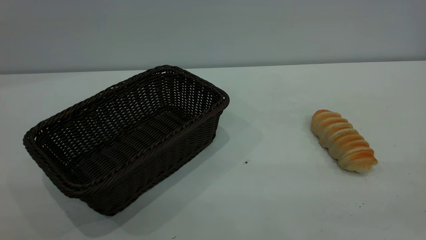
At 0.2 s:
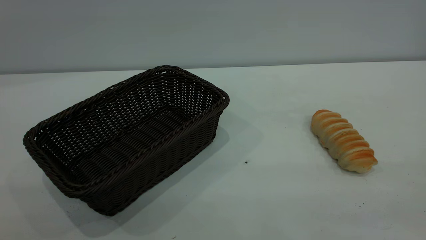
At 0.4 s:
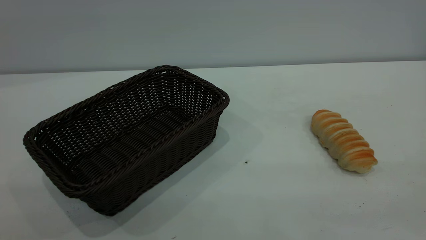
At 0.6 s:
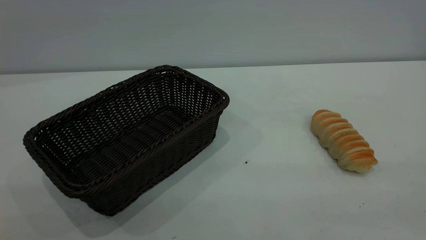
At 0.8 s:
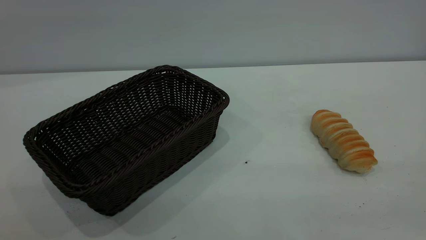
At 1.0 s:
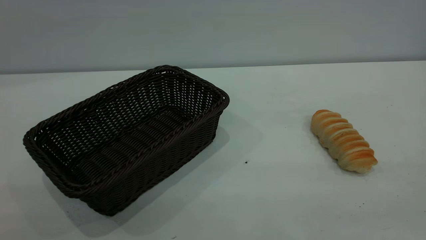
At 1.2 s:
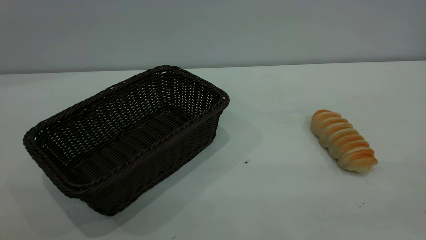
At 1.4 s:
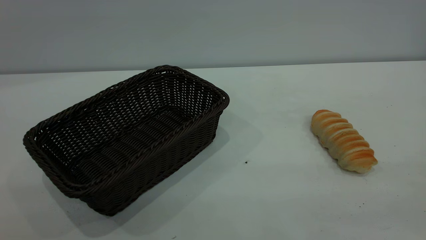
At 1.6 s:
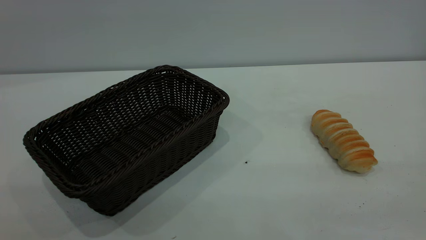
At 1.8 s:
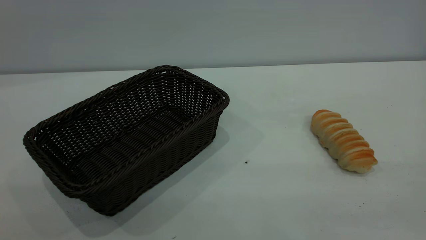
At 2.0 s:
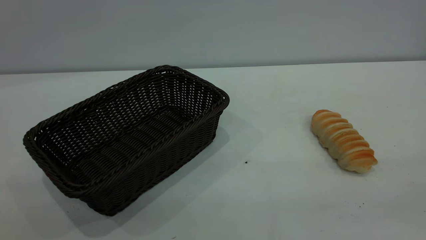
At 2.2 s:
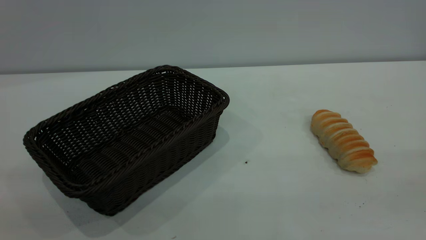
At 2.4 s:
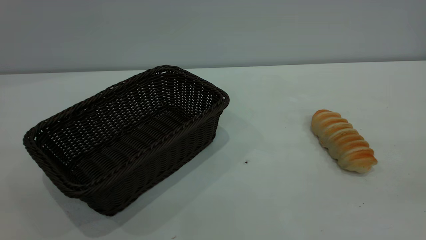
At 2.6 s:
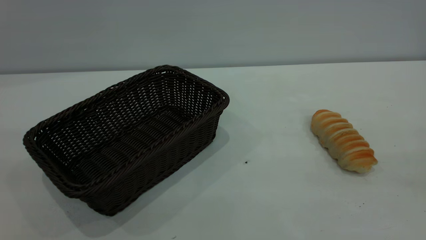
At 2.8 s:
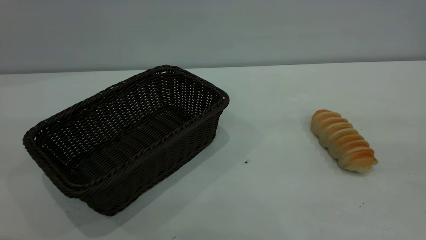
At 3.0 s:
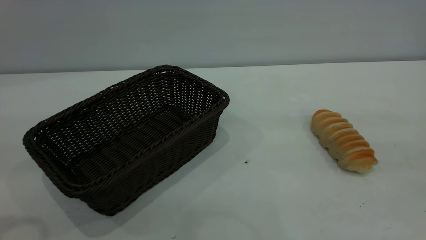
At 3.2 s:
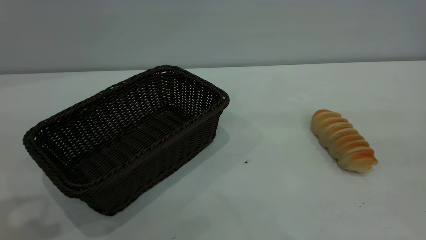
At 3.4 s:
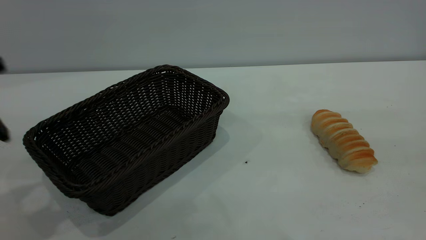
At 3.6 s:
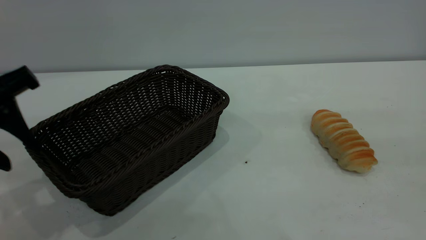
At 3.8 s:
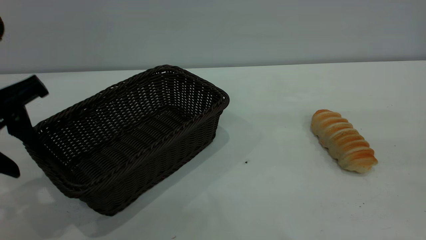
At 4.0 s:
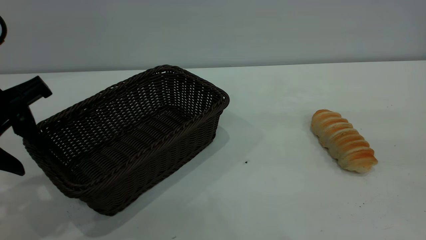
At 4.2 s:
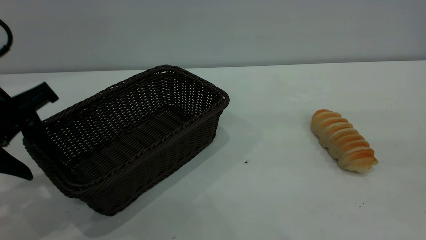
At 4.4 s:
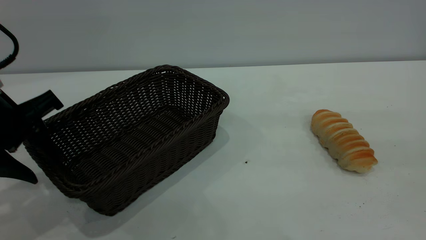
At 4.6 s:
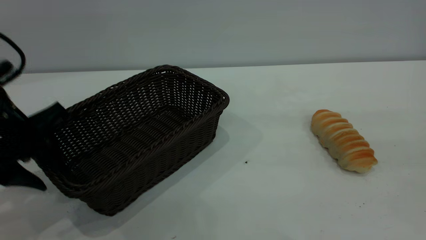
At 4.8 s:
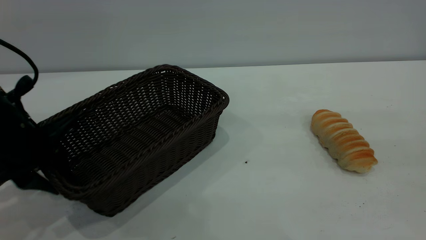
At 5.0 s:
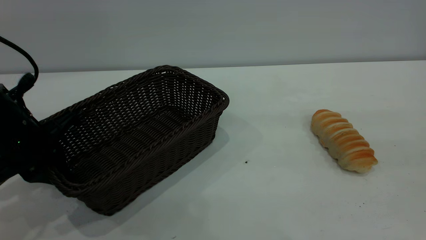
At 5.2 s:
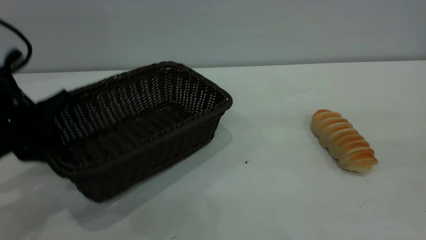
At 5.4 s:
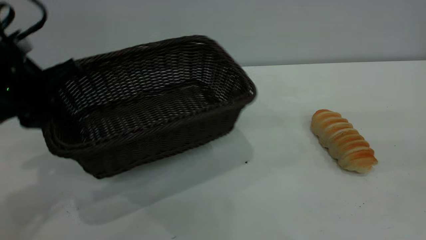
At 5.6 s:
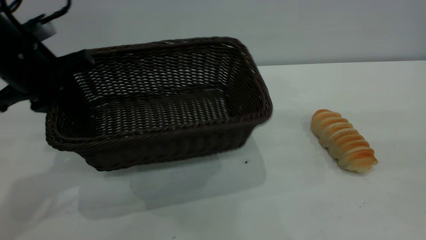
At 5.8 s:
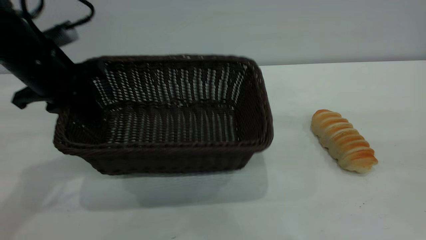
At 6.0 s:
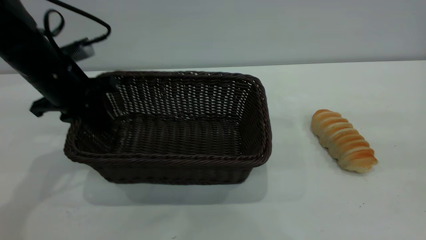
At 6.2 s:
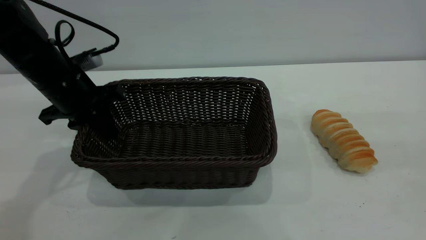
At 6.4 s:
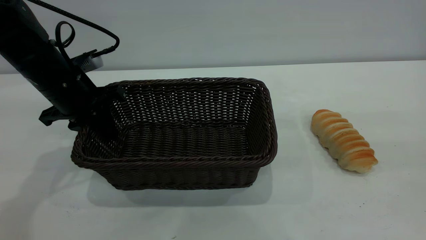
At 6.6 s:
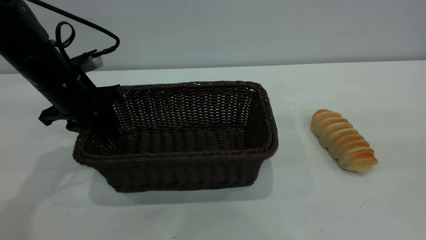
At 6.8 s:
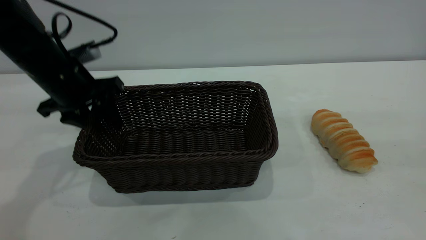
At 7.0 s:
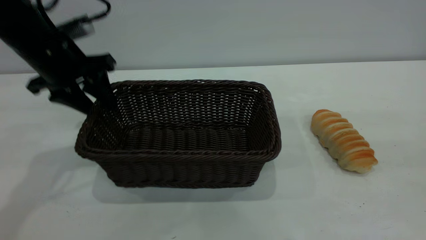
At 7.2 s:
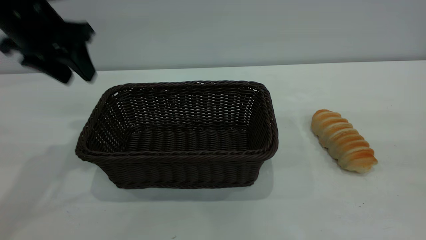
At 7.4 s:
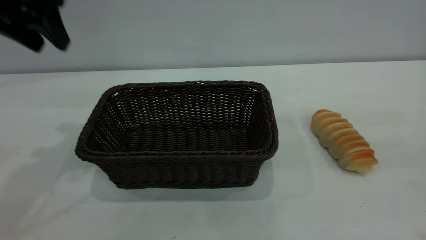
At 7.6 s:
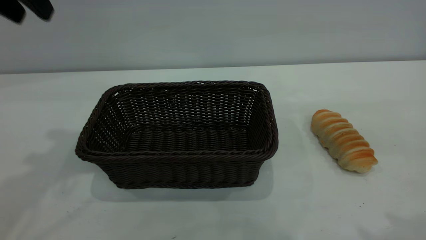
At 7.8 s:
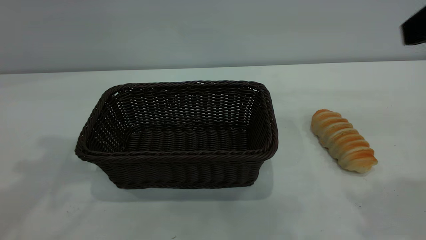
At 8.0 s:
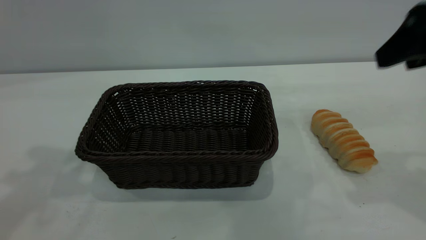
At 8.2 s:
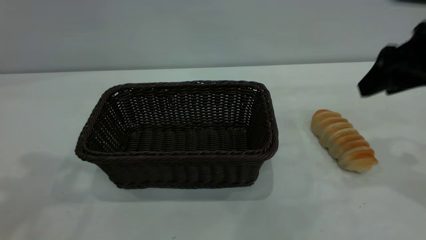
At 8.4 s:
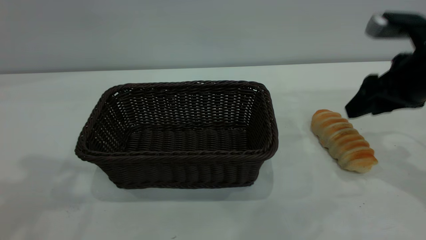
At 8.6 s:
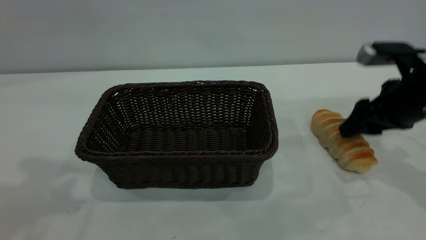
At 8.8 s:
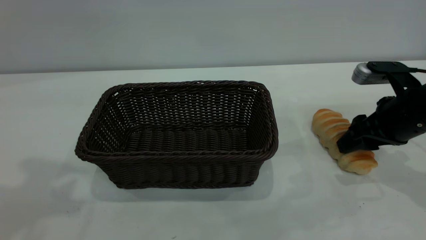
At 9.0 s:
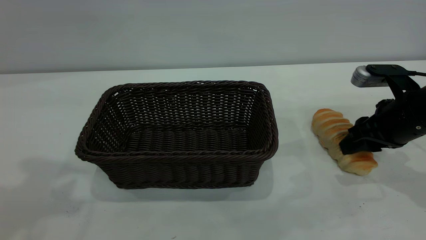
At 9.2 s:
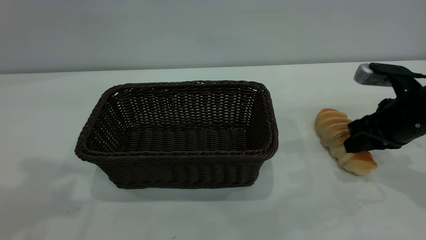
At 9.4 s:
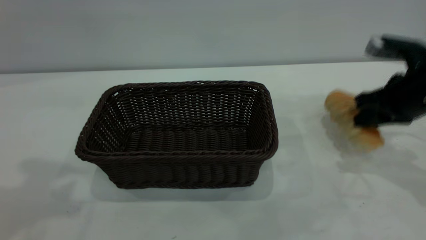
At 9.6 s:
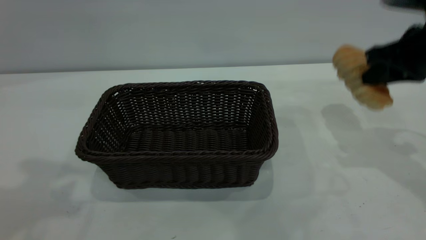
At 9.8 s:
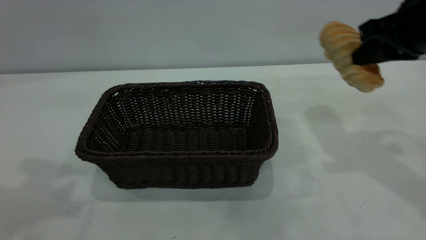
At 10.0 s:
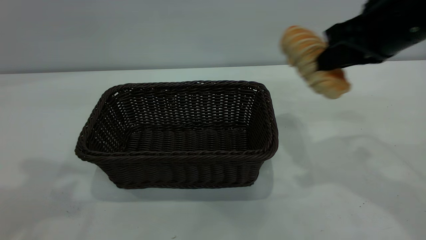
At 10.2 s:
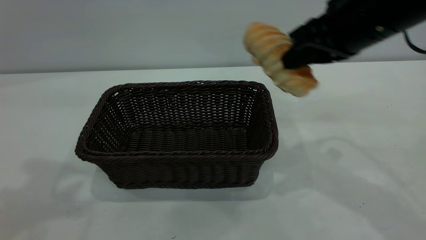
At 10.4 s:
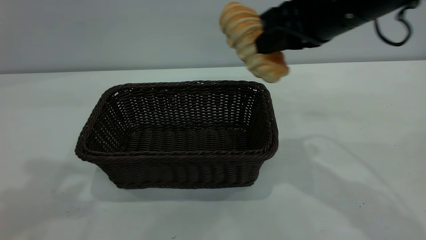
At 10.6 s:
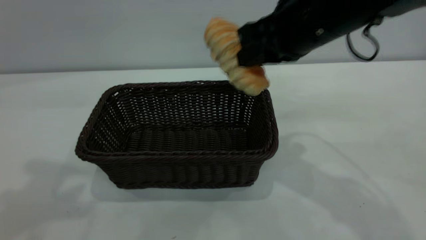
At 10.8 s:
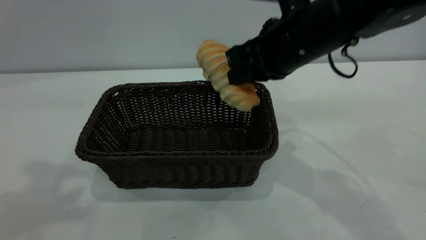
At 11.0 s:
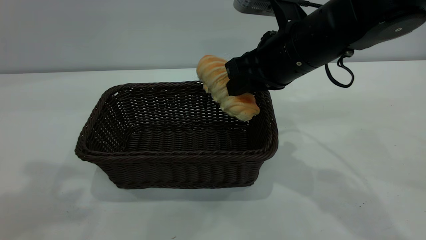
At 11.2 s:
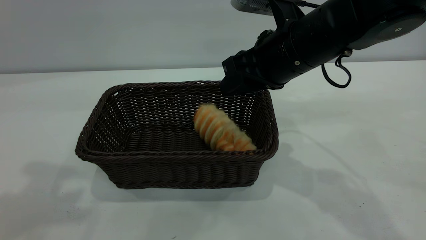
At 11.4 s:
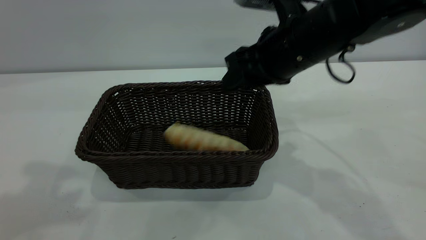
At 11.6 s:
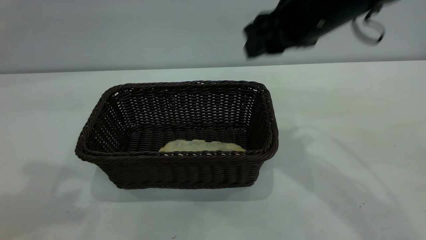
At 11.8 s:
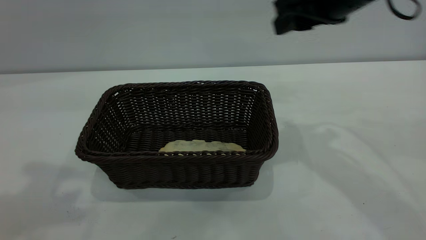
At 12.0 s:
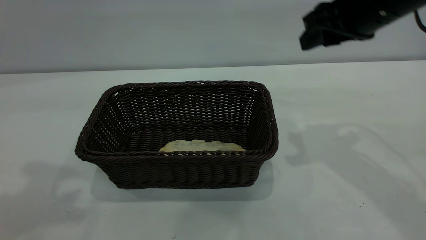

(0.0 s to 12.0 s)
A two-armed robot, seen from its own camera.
Task of the whole recording: One hand grasps the black basket and places it in the middle of the table, while the other hand picks up the long bread and puts it into the black basket.
Step, 0.0 s - 7.2 s: Move the basket to the center of view.
Step, 9.6 s - 11.6 s: place the bread into the basket.
0.0 s - 1.6 s: Both grippers stay about where they are.
3.0 s - 4.4 s: The left gripper is displaced downward and forward by roughly 15 cm.
4.4 s - 6.0 s: The left gripper moves forward, approximately 10 cm, and closes its fingers.
6.0 s - 7.6 s: The left gripper moves upward, some 20 cm, and opens its fingers, while the right gripper ends up approximately 5 cm from where it was.
7.6 s - 9.0 s: The right gripper travels downward and forward by some 30 cm, and closes, while the left gripper moves backward and upward, some 10 cm.
9.0 s - 10.4 s: The right gripper heads upward and to the left, covering approximately 20 cm.
10.4 s - 12.0 s: The right gripper is displaced to the right by about 5 cm, and opens up.

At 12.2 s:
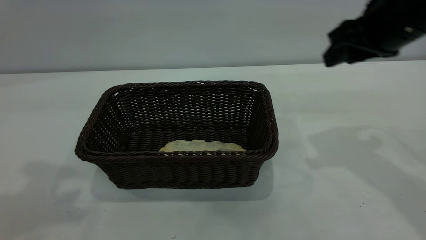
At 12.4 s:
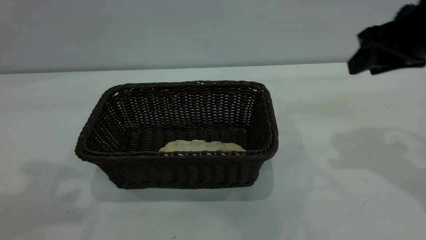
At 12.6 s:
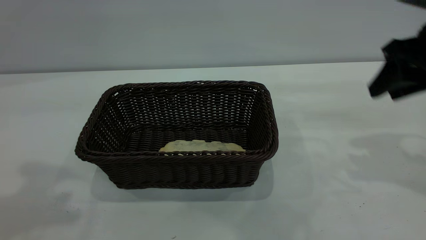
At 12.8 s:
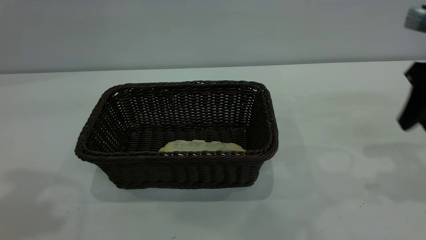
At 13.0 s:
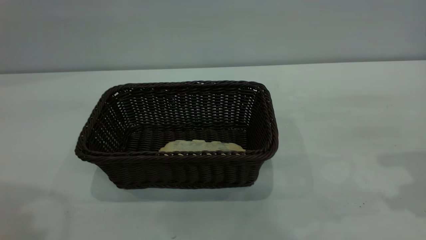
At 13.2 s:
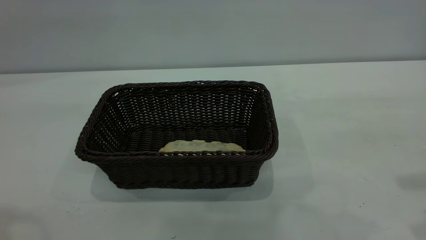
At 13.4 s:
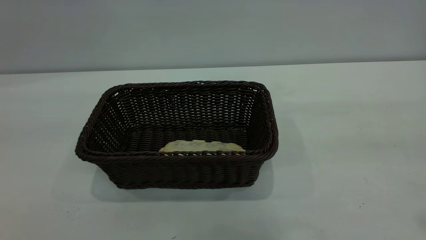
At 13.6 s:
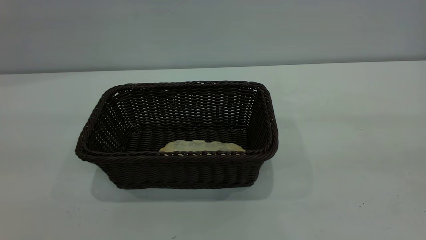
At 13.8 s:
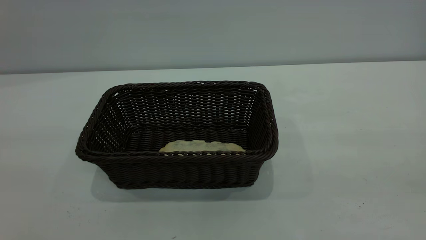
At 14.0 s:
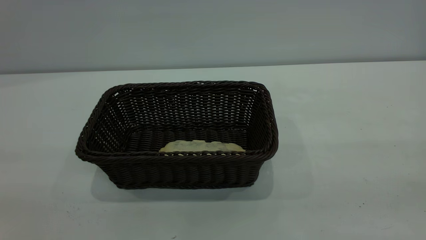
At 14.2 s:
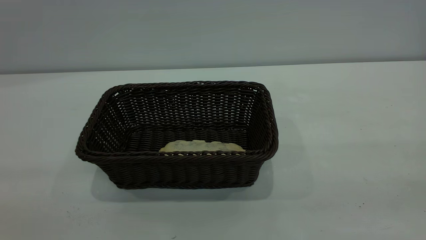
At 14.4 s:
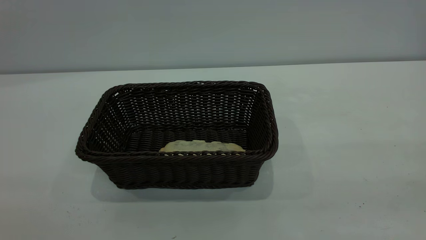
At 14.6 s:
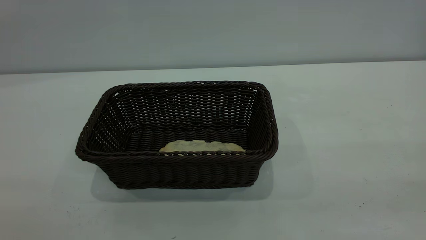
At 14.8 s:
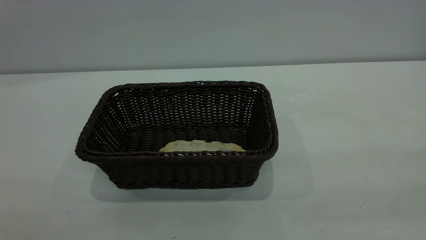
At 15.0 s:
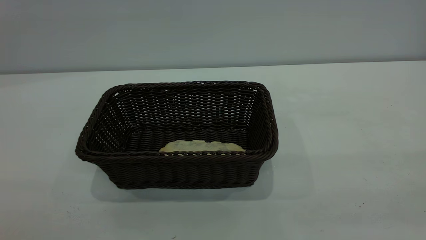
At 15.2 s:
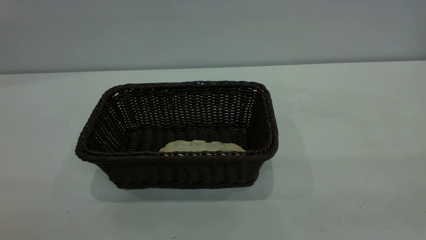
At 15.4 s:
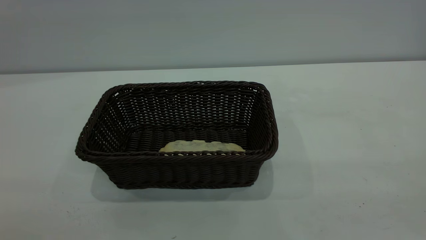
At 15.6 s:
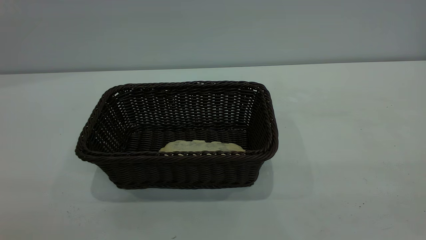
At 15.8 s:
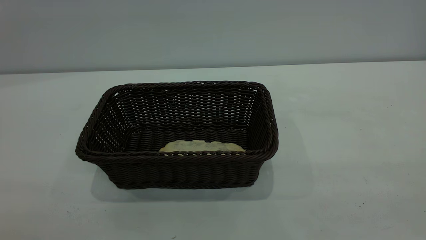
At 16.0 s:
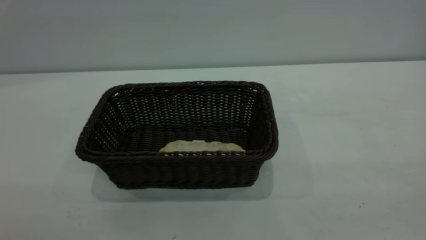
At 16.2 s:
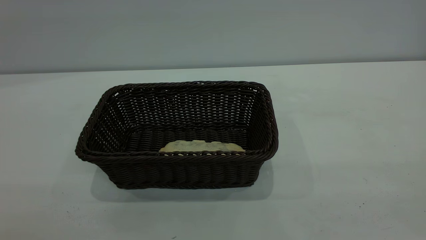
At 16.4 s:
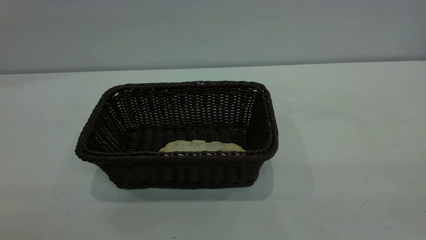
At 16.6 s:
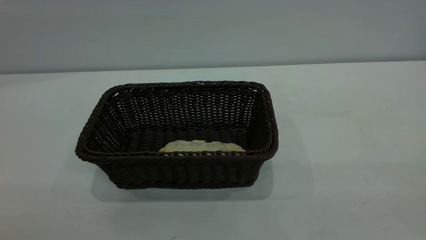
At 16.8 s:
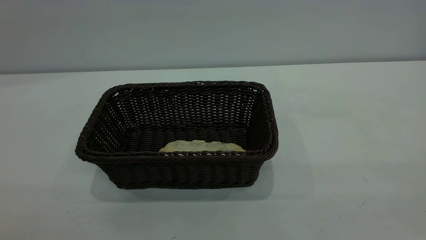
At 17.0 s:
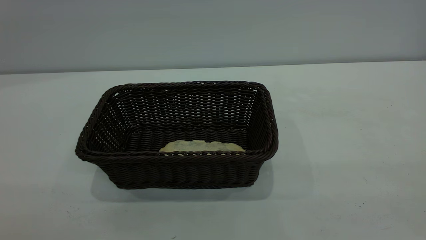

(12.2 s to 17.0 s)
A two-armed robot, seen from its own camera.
Task of the whole recording: One hand grasps the black basket and places it in the middle of the table, while the other hand picks up the long bread and puts it into the black basket.
12.2 s - 13.8 s: The right gripper moves backward and upward, roughly 35 cm.
15.4 s - 17.0 s: Both grippers stay put.
